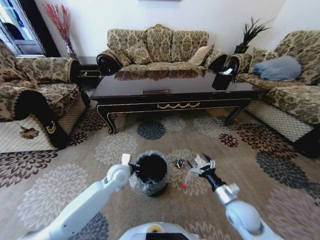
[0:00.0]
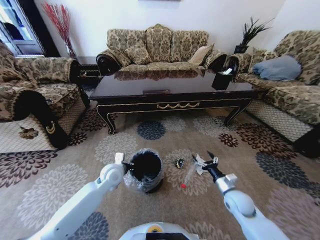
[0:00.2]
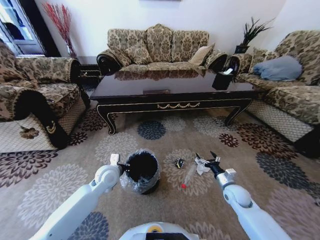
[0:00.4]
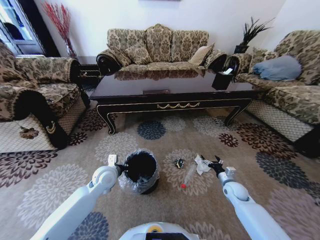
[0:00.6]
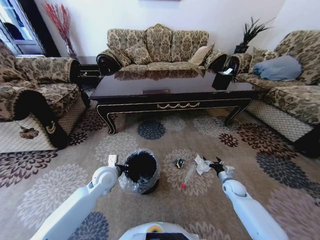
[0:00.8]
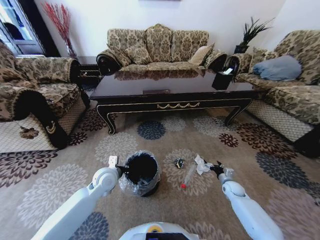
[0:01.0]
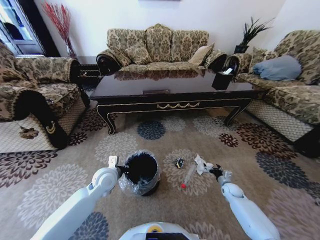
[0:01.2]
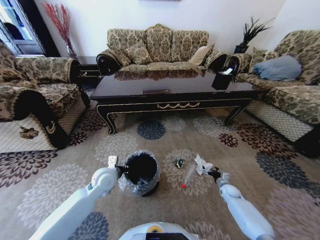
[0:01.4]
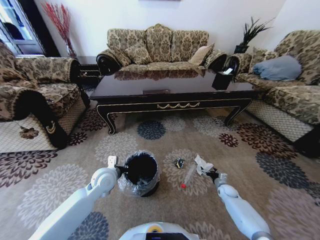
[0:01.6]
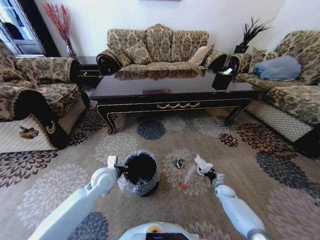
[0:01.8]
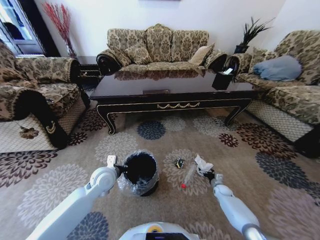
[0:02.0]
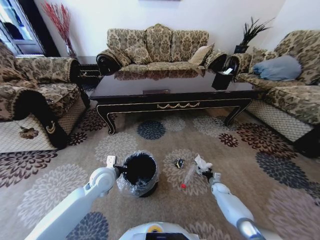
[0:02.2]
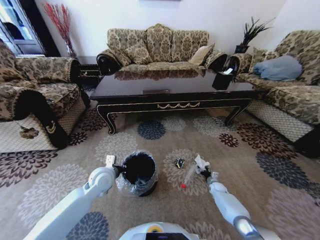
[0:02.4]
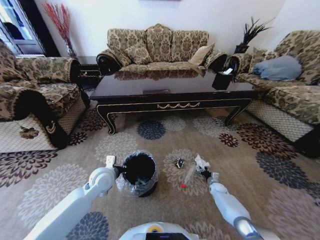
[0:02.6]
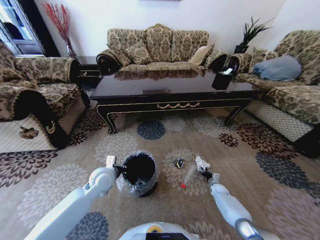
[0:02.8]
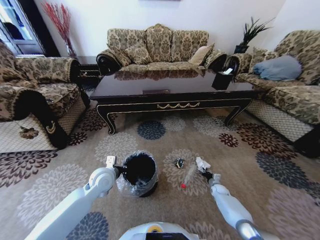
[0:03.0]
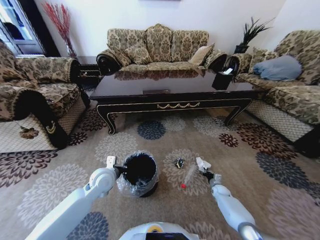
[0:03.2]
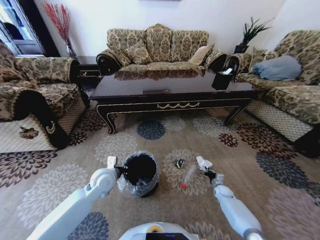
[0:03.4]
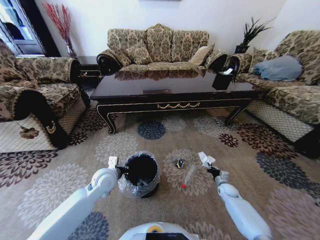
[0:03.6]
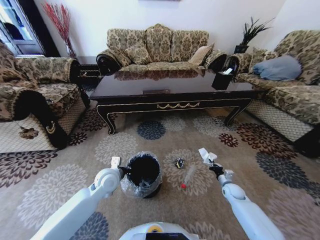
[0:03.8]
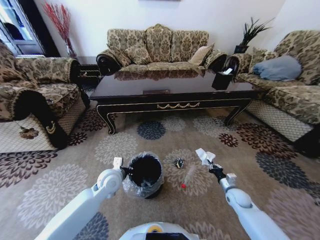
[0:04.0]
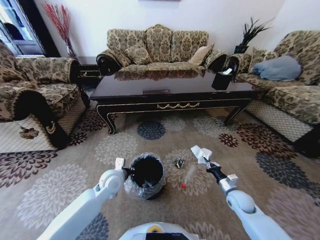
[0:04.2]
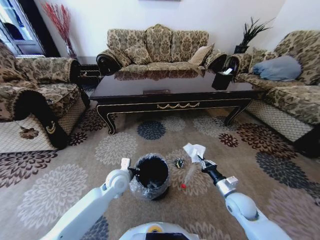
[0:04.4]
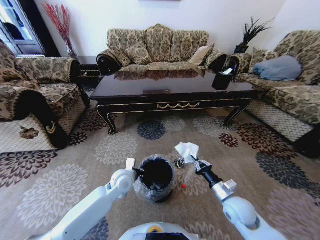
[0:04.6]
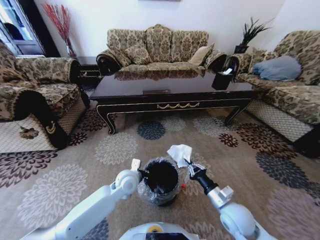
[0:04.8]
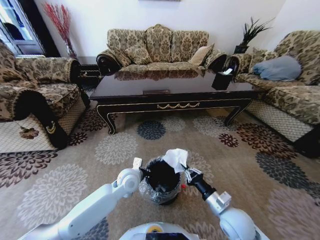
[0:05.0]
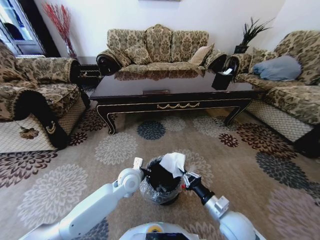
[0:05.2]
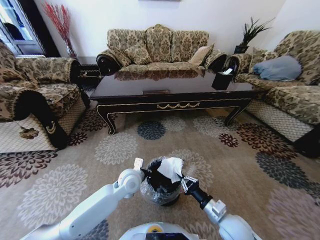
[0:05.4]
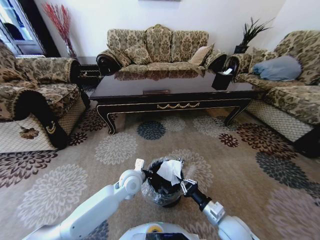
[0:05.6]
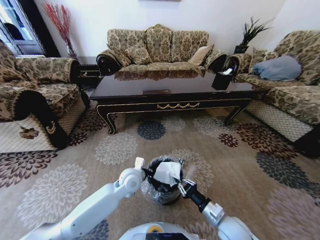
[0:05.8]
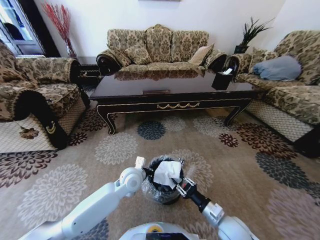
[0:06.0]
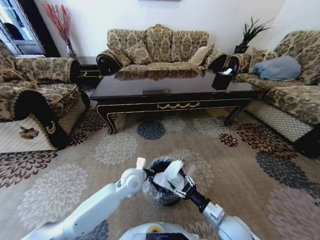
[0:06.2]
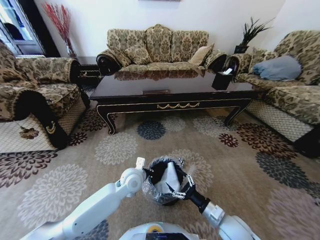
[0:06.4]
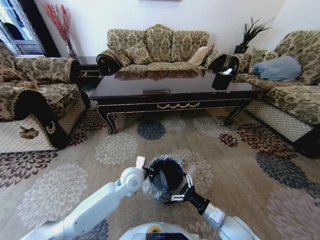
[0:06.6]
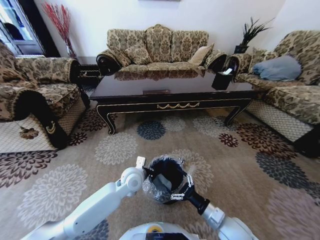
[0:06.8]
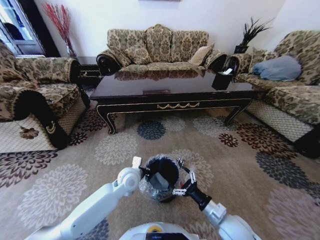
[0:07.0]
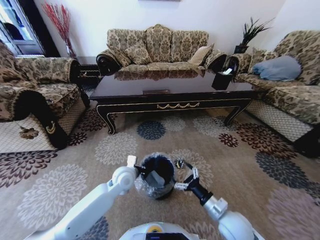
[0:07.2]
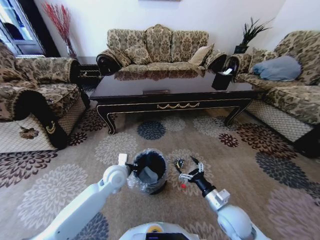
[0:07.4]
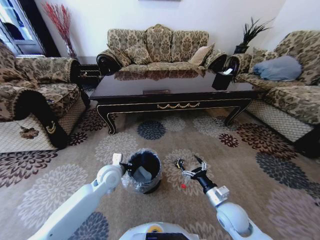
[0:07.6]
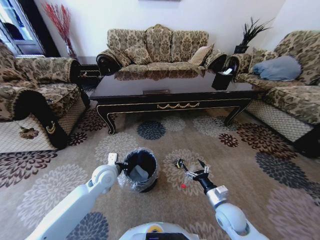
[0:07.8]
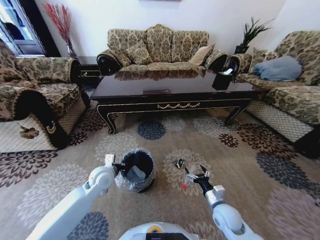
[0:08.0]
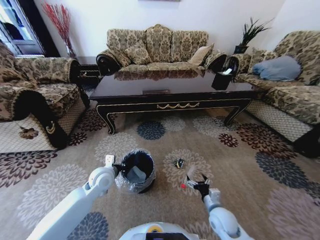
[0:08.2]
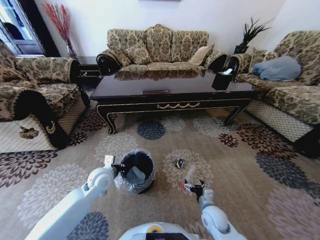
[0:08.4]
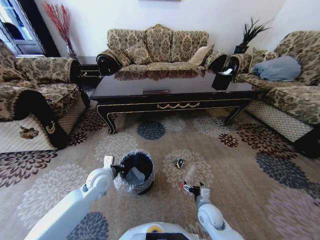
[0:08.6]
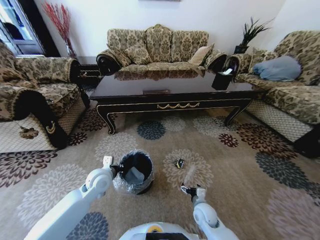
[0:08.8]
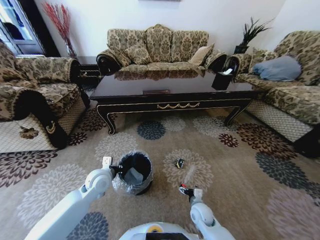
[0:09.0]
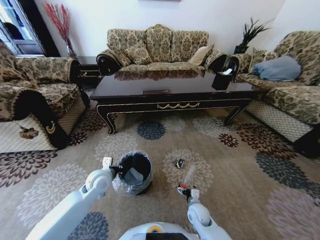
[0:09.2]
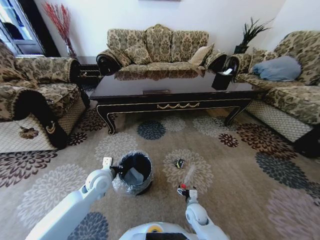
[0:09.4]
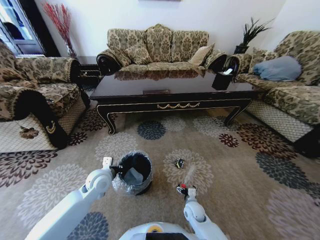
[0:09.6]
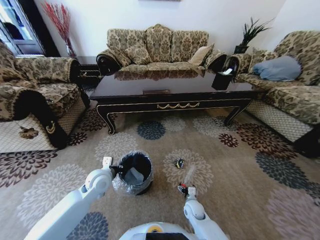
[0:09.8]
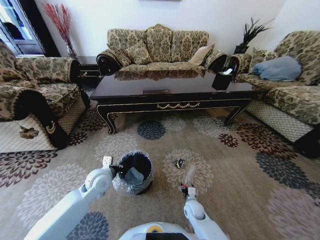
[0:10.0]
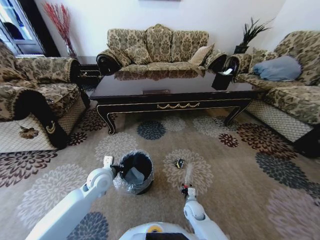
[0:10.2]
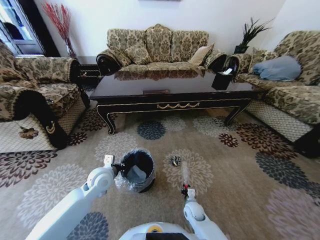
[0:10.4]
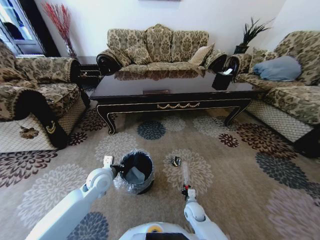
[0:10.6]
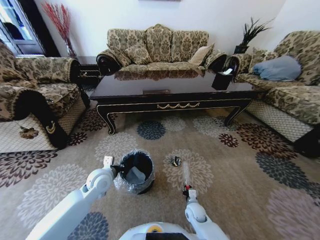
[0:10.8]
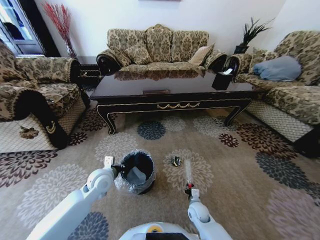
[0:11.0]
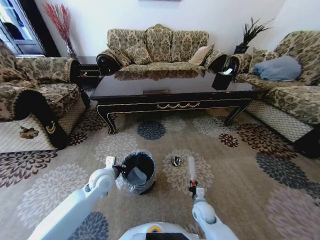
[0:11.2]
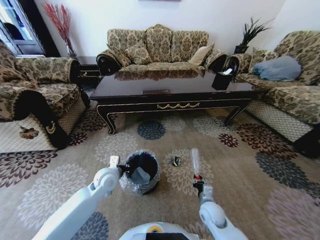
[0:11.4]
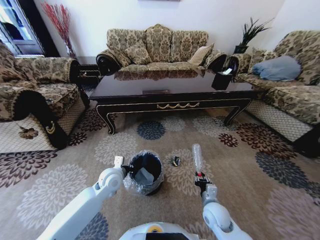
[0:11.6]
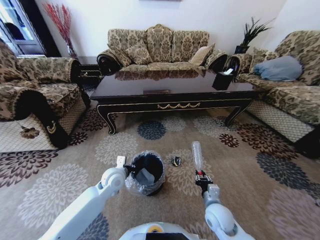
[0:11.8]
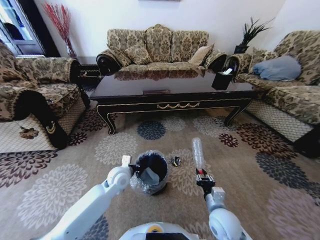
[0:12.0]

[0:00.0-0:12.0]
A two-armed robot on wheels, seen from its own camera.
Task of the whole recording: Move to the front of the table and pick up the trash from the floor, then place it into the trash bin.
0:00.0 to 0:01.6: The right gripper moves downward, forward and to the right, about 30 cm; the left gripper goes some 5 cm to the left.
0:01.6 to 0:03.0: The right gripper closes.
0:03.0 to 0:04.4: The right gripper travels upward and backward by some 25 cm, while the left gripper moves to the right, roughly 5 cm.
0:04.4 to 0:06.0: The left gripper goes approximately 5 cm to the right. The right gripper is displaced backward and to the left by roughly 10 cm.
0:06.0 to 0:07.6: The right gripper shifts by about 5 cm, and opens its fingers; the left gripper heads to the left, covering about 10 cm.
0:07.6 to 0:09.0: The right gripper moves downward and to the left, approximately 15 cm.
0:09.0 to 0:10.4: The right gripper moves downward, approximately 5 cm, and closes.
0:10.4 to 0:12.0: The right gripper shifts about 20 cm upward. Meanwhile the left gripper is displaced to the right by some 5 cm.

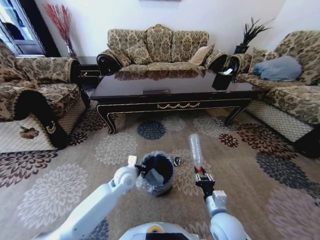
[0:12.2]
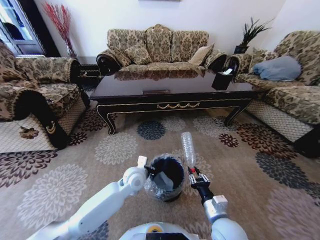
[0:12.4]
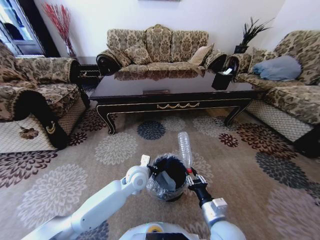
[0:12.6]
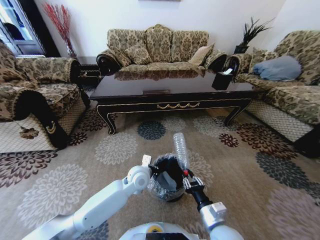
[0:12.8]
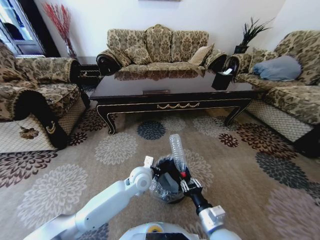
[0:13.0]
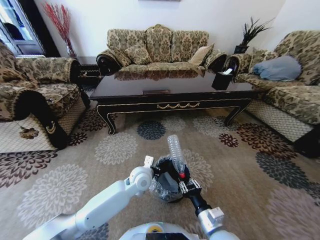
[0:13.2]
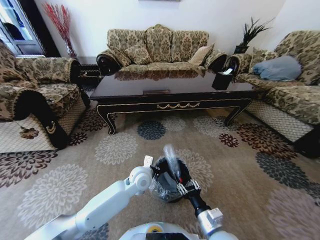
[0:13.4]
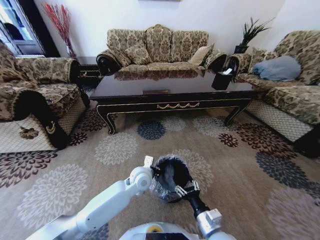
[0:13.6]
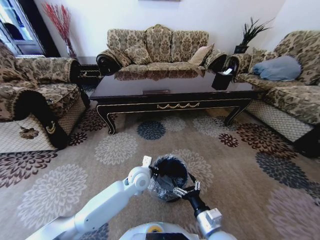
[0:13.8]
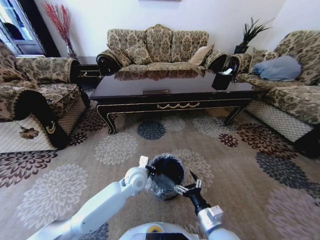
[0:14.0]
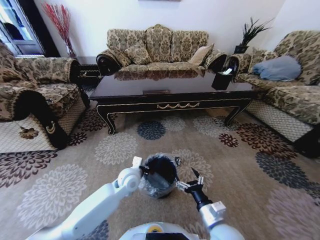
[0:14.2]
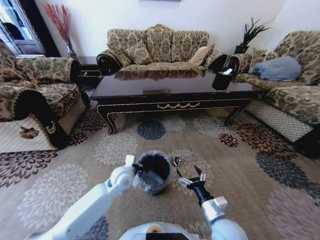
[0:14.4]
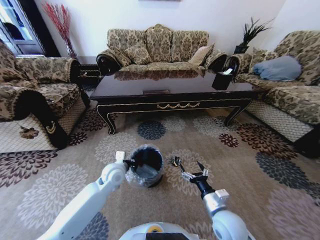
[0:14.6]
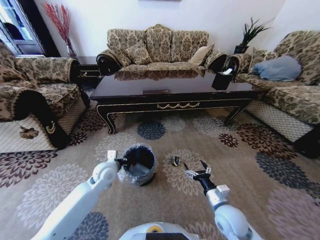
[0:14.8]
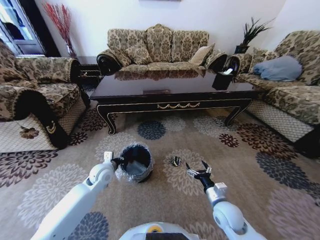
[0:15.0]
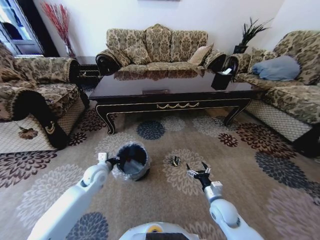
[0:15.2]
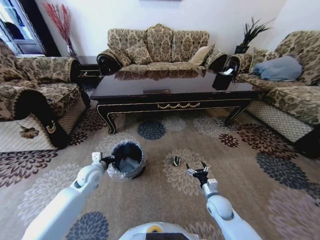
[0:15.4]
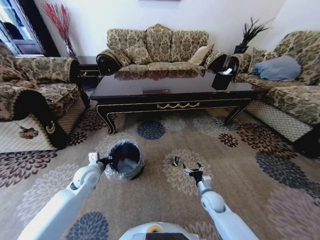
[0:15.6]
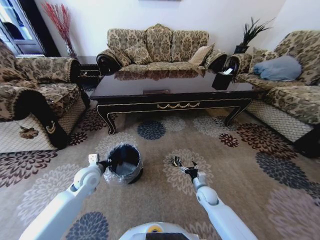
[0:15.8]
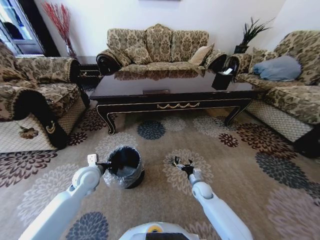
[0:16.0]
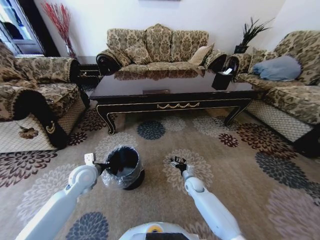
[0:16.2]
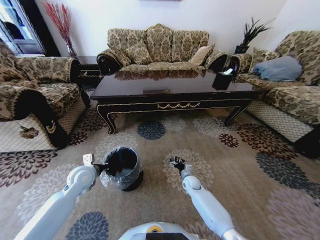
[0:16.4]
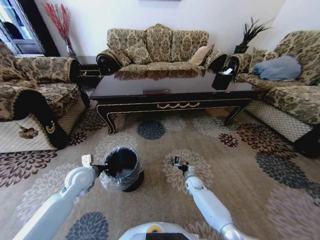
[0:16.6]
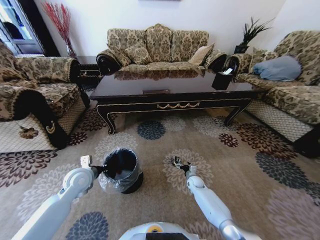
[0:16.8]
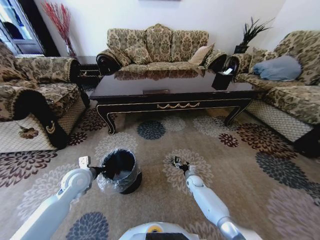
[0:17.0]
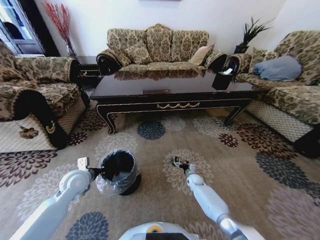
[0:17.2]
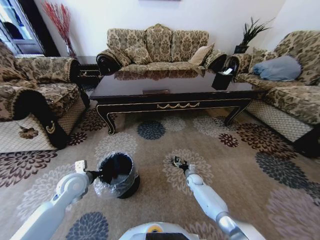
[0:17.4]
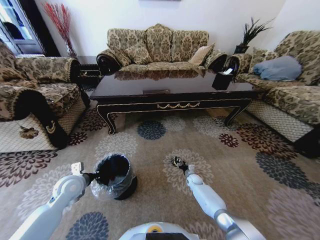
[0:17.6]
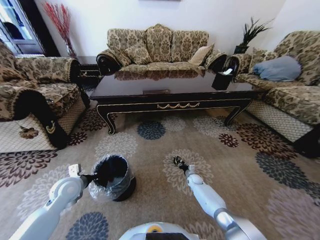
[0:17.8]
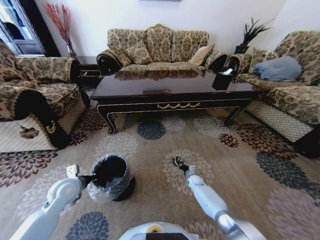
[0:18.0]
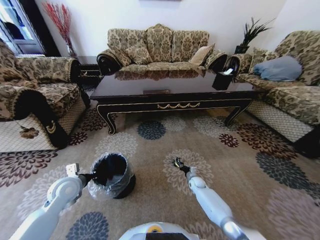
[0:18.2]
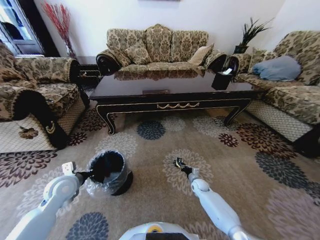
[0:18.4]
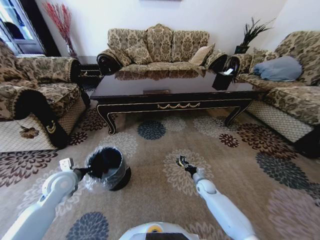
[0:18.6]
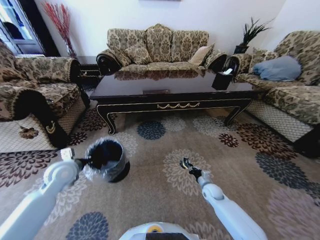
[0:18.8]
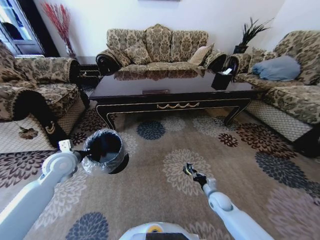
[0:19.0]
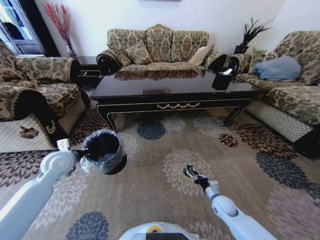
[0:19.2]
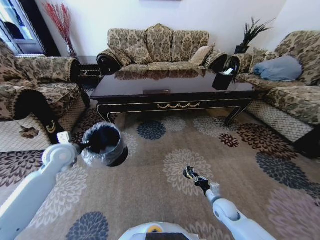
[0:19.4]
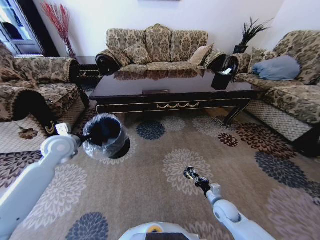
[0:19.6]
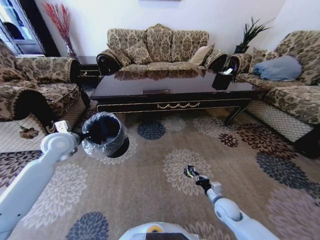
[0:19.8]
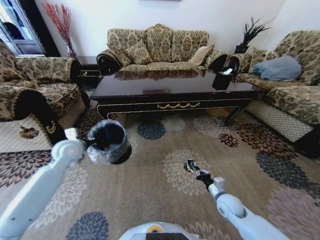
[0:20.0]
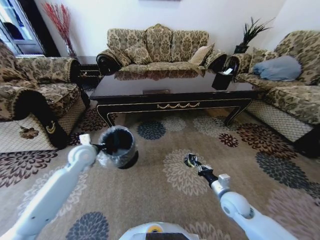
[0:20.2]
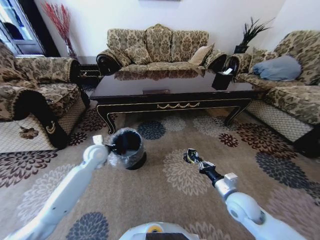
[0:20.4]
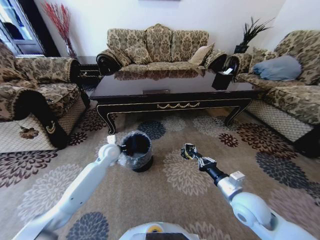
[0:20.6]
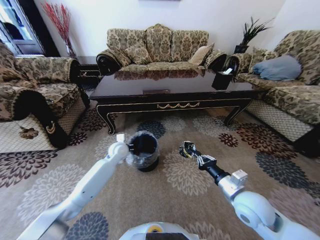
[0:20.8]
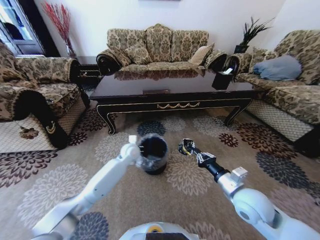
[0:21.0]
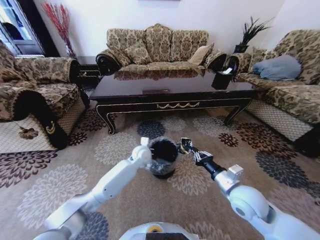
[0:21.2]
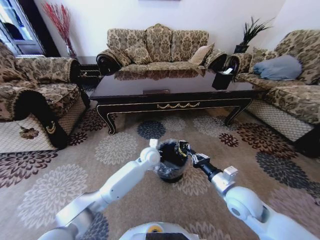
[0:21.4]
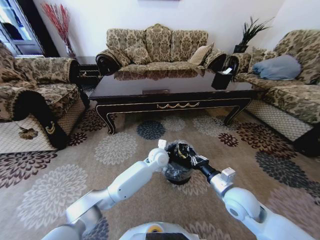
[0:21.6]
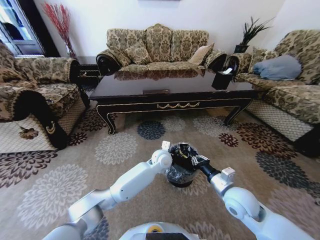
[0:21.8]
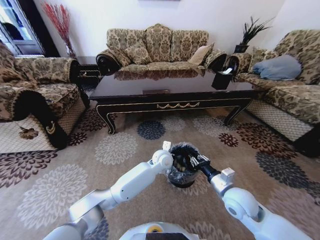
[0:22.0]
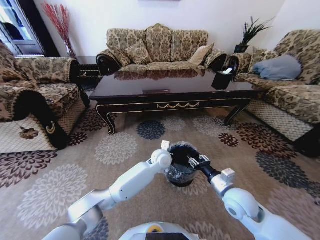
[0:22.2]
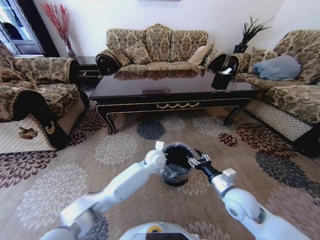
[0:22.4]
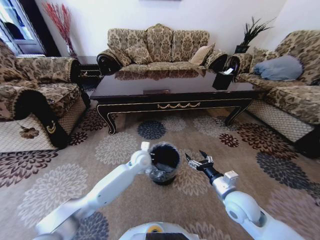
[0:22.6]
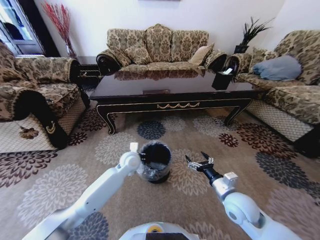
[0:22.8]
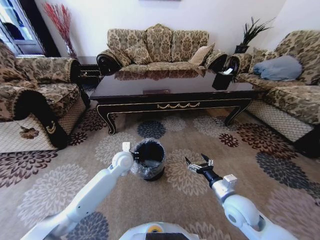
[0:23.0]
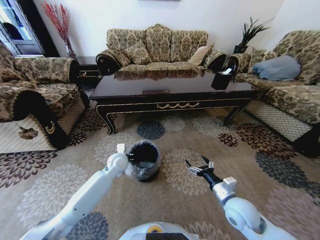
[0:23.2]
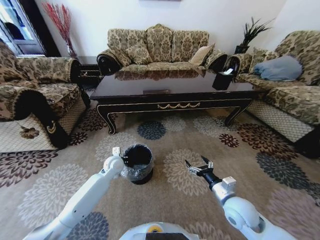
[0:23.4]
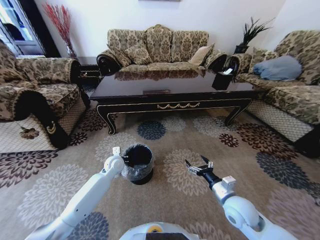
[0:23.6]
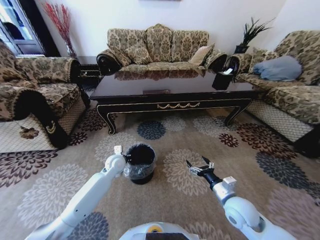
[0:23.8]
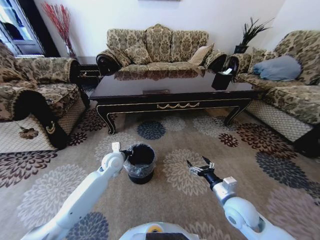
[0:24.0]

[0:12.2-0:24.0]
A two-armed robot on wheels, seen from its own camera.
Task of the whole recording: Move to the front of the table and pick up the trash from the floor, then place it into the trash bin.
0:12.2 to 0:13.6: The left gripper goes about 5 cm to the right, while the right gripper heads backward, covering some 5 cm, and opens.
0:13.6 to 0:15.2: The left gripper goes roughly 20 cm to the left. Meanwhile the right gripper heads forward, to the right and downward, covering some 15 cm.
0:15.2 to 0:16.6: The left gripper ends up about 5 cm from where it was; the right gripper goes some 20 cm forward and downward.
0:16.6 to 0:18.2: The right gripper closes up, while the left gripper changes place by roughly 5 cm.
0:18.2 to 0:19.6: The left gripper shifts some 15 cm upward and forward. The right gripper goes roughly 20 cm backward and upward.
0:19.6 to 0:21.0: The right gripper goes some 20 cm upward. The left gripper travels to the right and downward by roughly 30 cm.
0:21.0 to 0:22.6: The left gripper reaches some 15 cm to the right, then returns. The right gripper opens up.
0:22.6 to 0:24.0: The left gripper travels to the left by roughly 15 cm.
